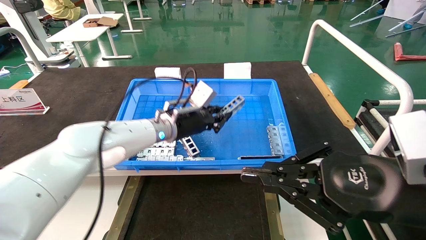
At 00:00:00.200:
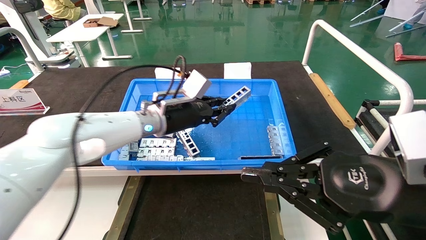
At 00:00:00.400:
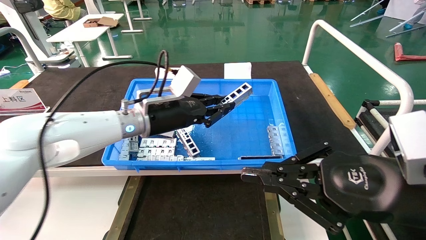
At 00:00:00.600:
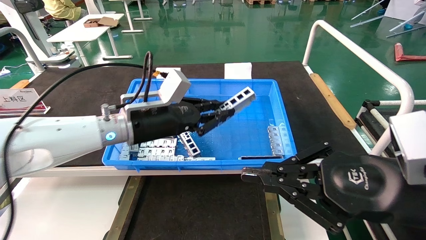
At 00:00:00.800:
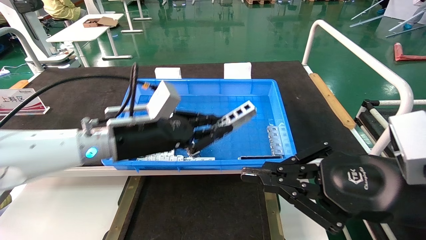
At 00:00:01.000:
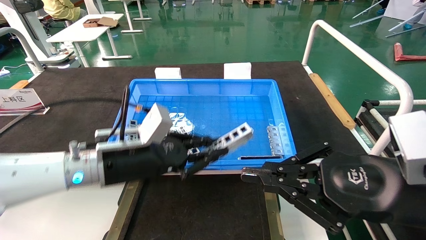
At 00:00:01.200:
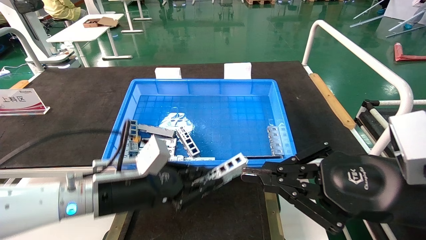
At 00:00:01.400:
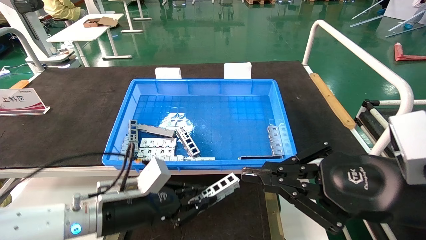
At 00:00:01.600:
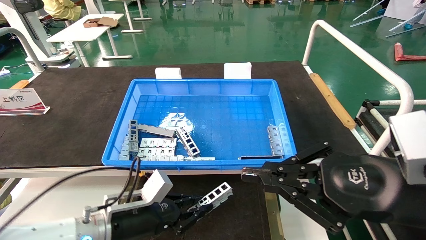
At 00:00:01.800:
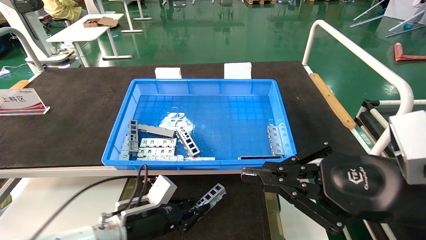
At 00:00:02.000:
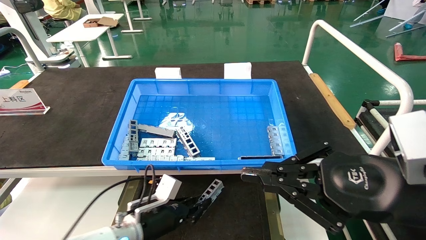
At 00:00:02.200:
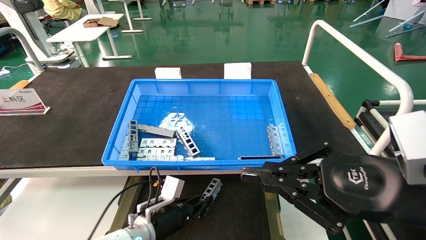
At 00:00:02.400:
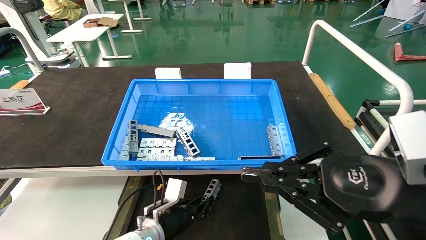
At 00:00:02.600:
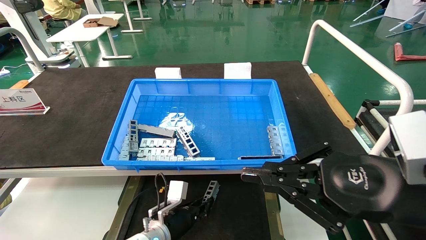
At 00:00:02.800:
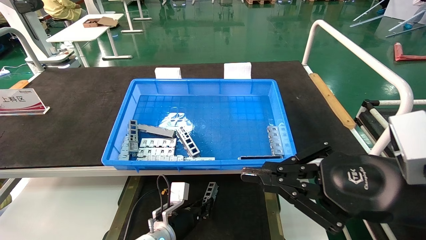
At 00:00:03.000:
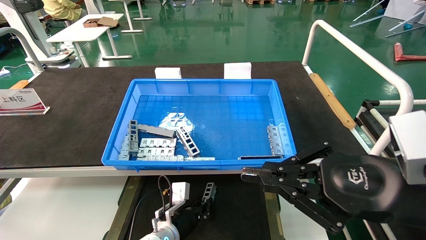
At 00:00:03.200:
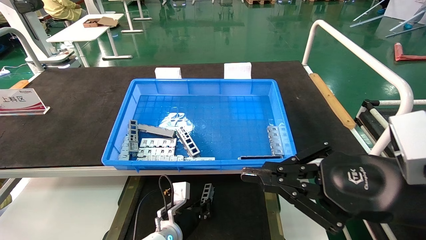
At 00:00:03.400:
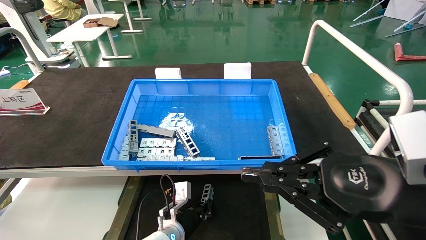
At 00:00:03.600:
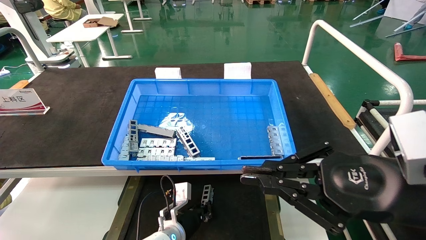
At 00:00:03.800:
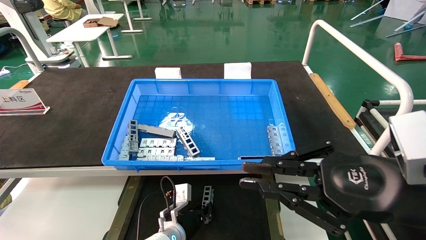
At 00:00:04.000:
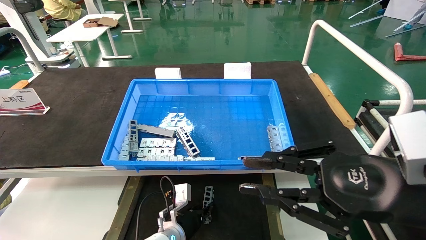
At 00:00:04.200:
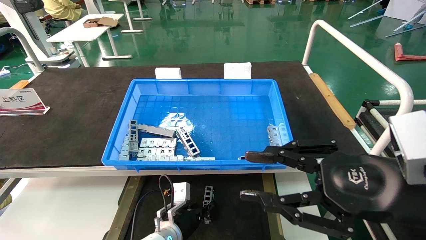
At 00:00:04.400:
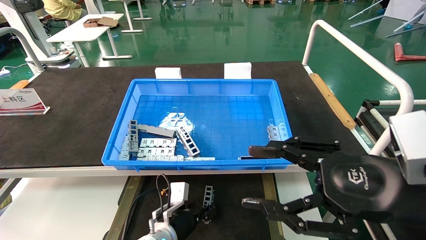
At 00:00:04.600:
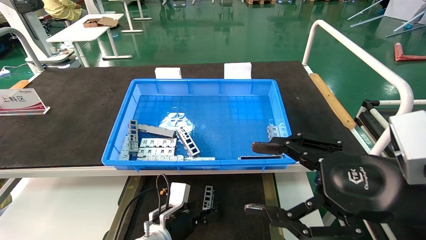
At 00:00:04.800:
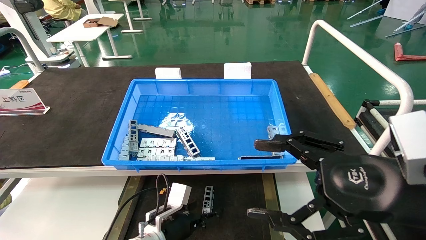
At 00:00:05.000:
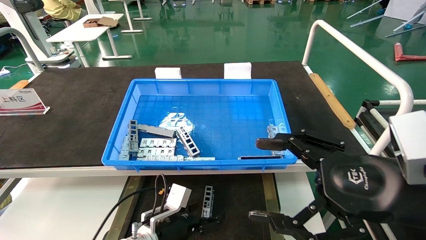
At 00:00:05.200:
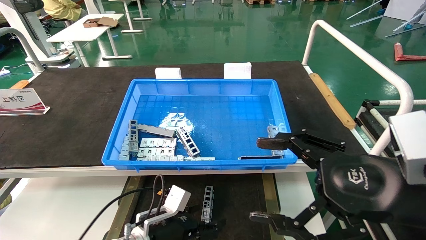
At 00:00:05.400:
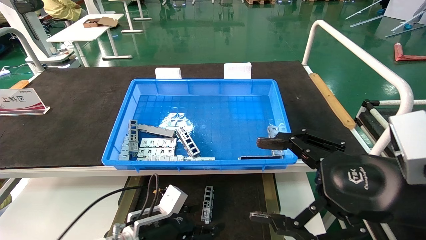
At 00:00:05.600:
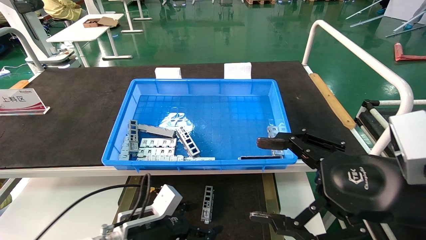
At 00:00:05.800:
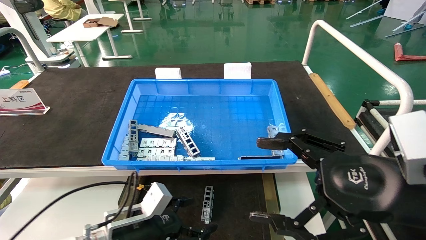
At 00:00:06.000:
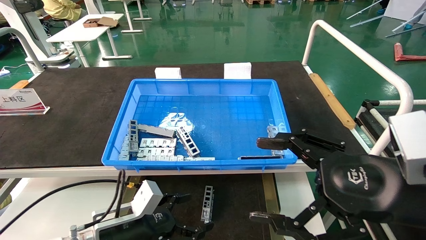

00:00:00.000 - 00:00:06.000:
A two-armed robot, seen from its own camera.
Task of the whole recording: Grasp the part with one hand and place it on the black container.
Step, 00:00:00.200 - 00:00:04.200: Place the front USB bracket into the box.
00:00:00.000 - 00:00:01.600: The left gripper shifts some 20 cm downward, backward and to the left.
00:00:01.600 - 00:00:03.000: The left gripper heads downward, to the right and forward, covering approximately 15 cm.
00:00:03.000 - 00:00:04.400: The right gripper opens. Meanwhile the left gripper opens.
00:00:04.400 - 00:00:06.000: The left gripper moves to the left, backward and upward, roughly 15 cm, and opens. Meanwhile the right gripper opens its fingers.
